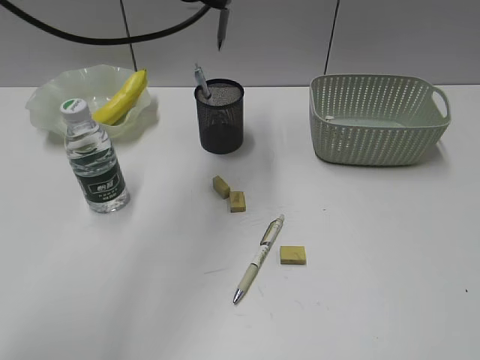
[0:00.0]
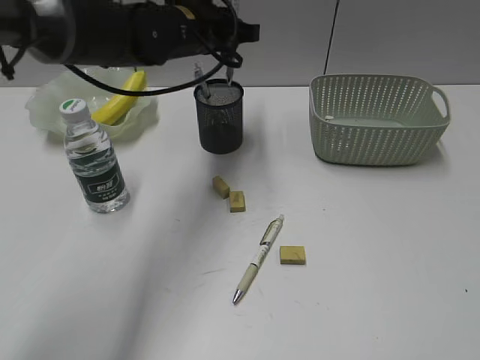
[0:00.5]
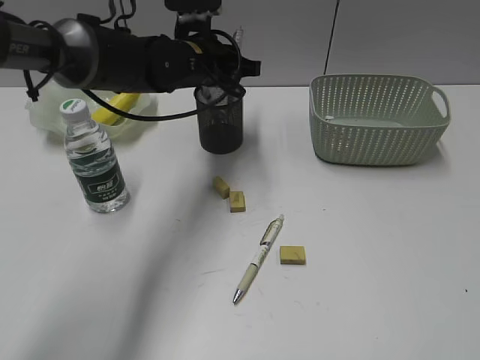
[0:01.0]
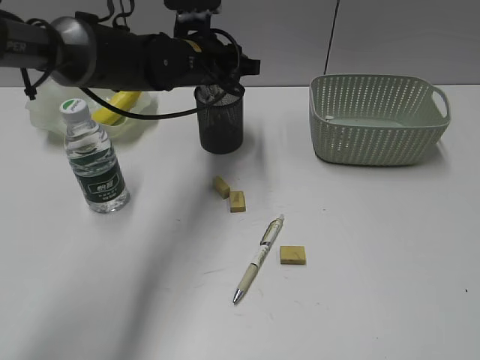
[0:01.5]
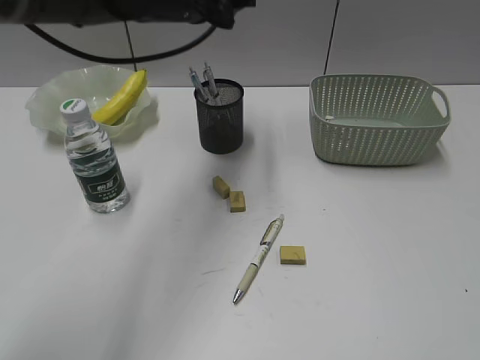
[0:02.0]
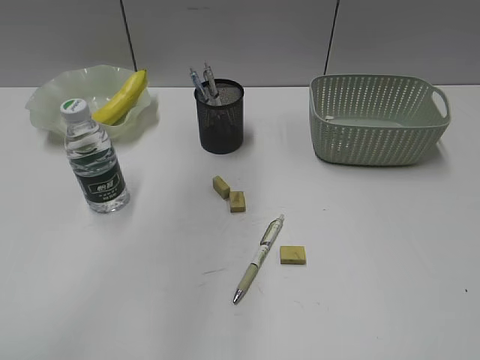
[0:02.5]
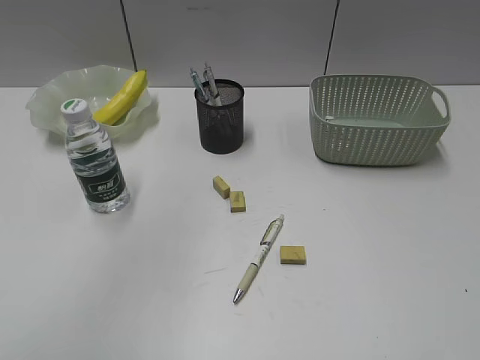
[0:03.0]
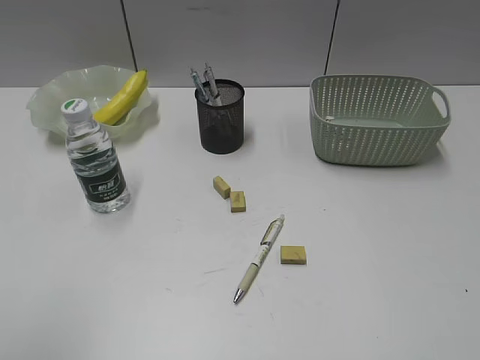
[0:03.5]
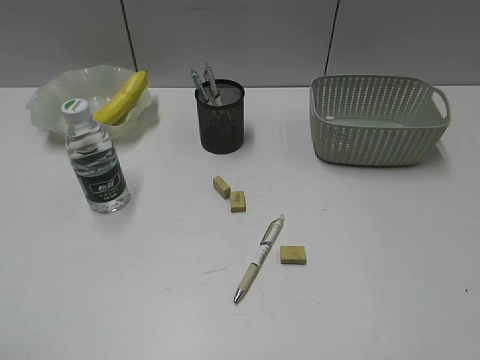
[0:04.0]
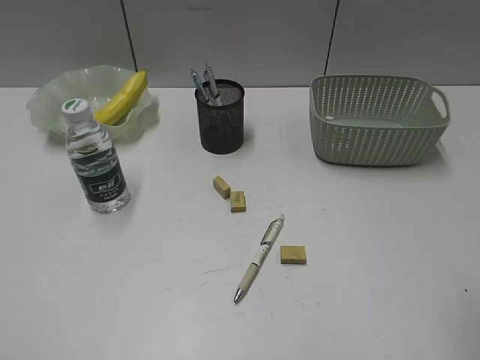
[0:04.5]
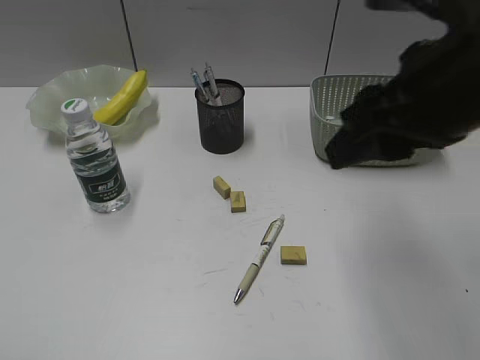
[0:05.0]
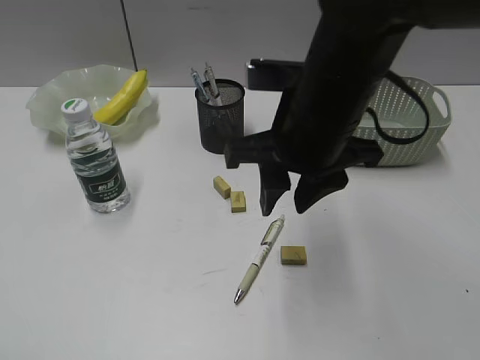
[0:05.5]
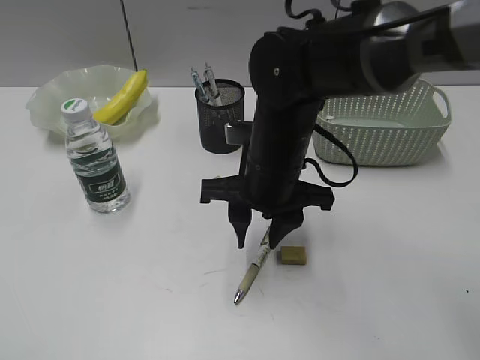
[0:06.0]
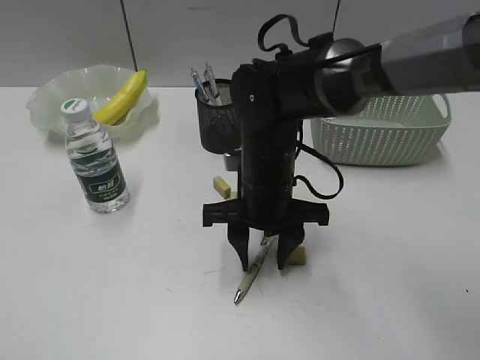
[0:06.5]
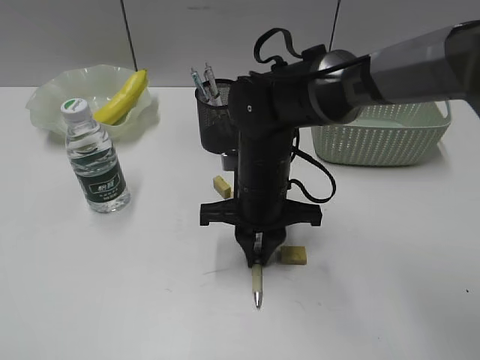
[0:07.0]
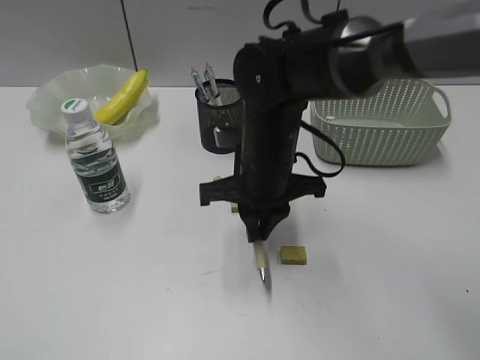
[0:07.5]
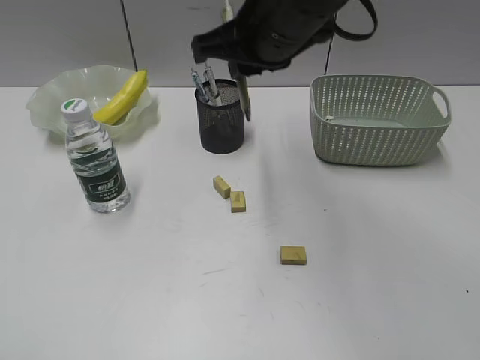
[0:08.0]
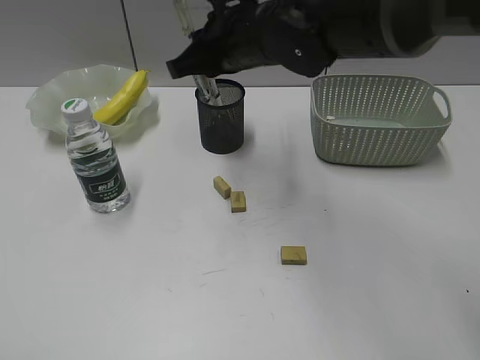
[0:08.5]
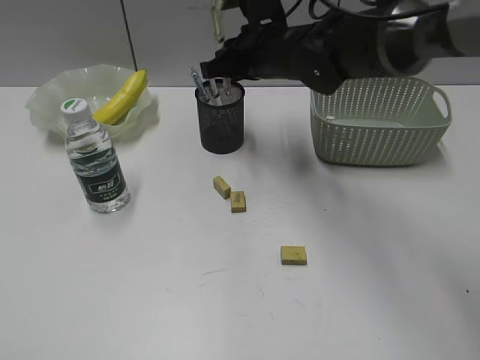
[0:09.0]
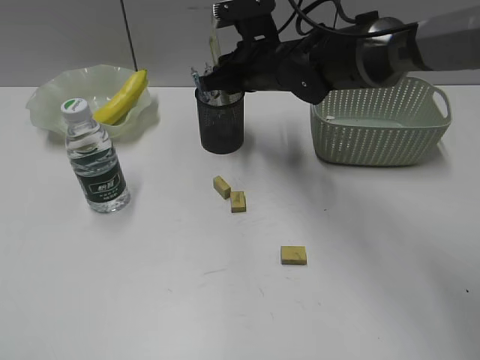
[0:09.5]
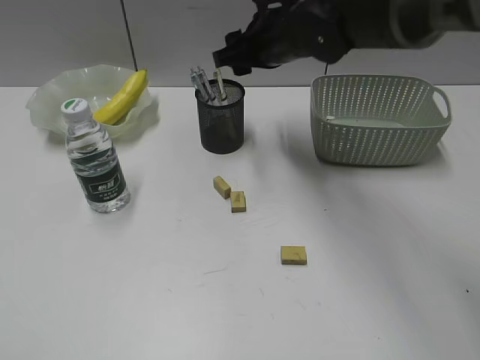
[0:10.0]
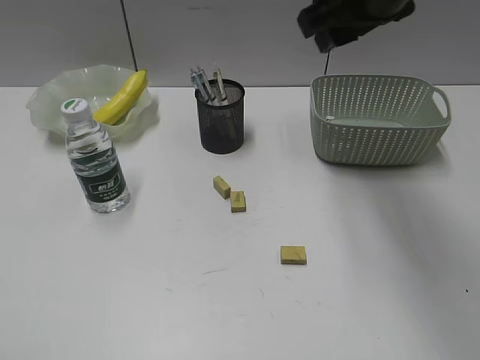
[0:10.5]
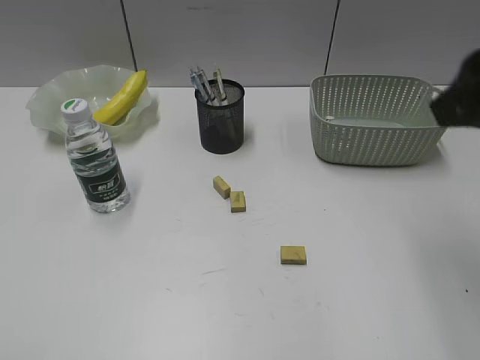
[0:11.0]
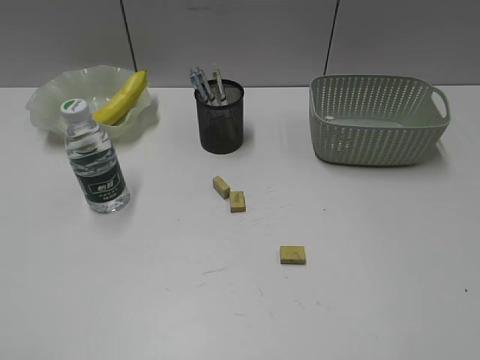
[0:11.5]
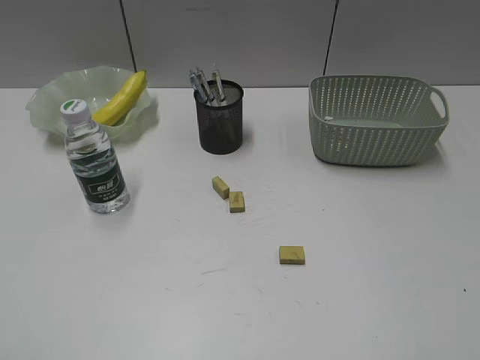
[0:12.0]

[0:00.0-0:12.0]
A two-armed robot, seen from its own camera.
Step, 0:00.0 to 0:01.5: Place the gray pen in pen holder with left gripper.
Step, 0:02.0 to 0:07.0: Grasp the yellow pen with right gripper.
Step, 0:07.5 to 0:09.5: Place the yellow pen in pen holder with right gripper.
0:00.0 to 0:02.0: The left gripper goes downward and returns, about 10 cm each way, and opens up.
0:02.0 to 0:04.0: The left gripper travels backward and to the left by approximately 50 cm.
0:04.0 to 0:06.0: The right gripper heads forward, to the left and downward, covering approximately 40 cm.
0:06.0 to 0:08.0: The right gripper heads upward, covering approximately 15 cm, and closes up.
0:08.0 to 0:10.0: The right gripper travels forward and downward by approximately 10 cm, and opens its fingers.
0:10.0 to 0:12.0: The right gripper travels backward and to the right by approximately 50 cm.

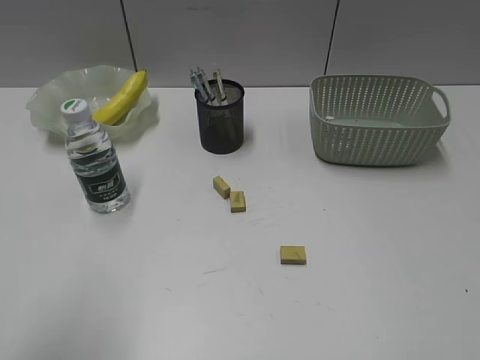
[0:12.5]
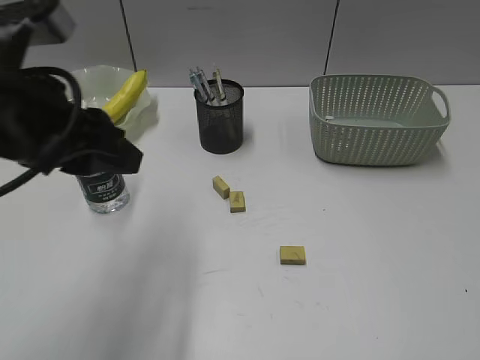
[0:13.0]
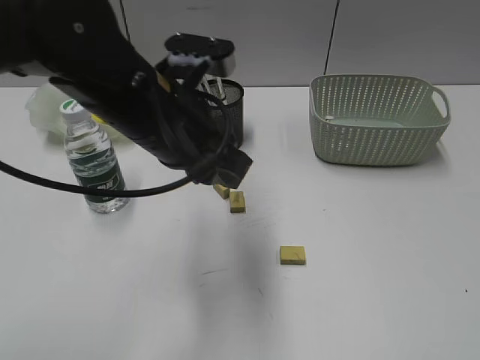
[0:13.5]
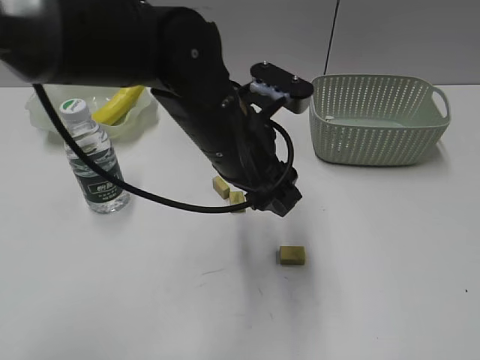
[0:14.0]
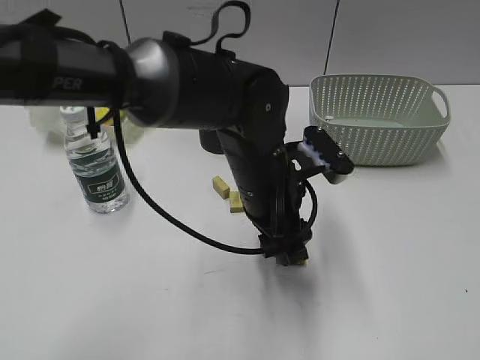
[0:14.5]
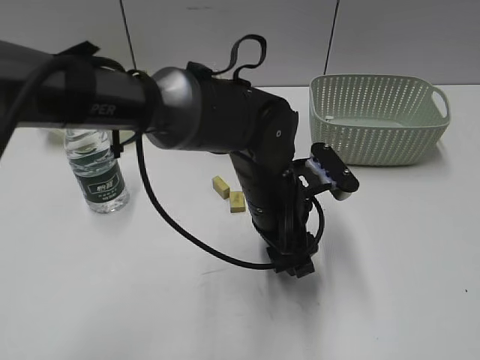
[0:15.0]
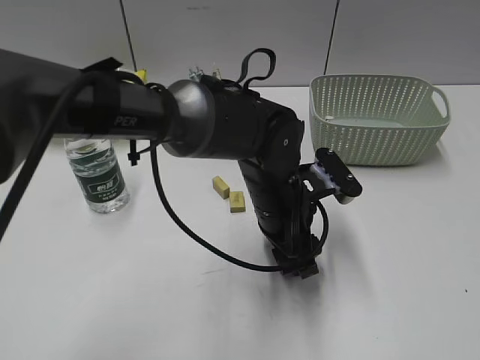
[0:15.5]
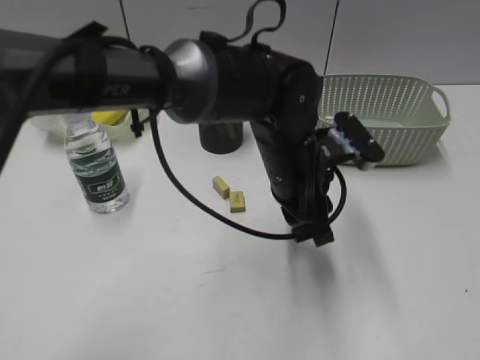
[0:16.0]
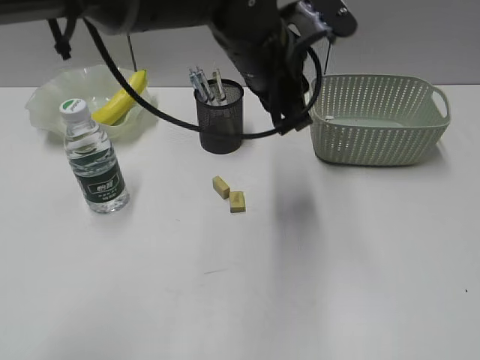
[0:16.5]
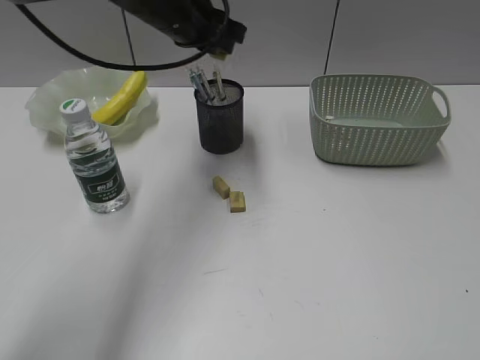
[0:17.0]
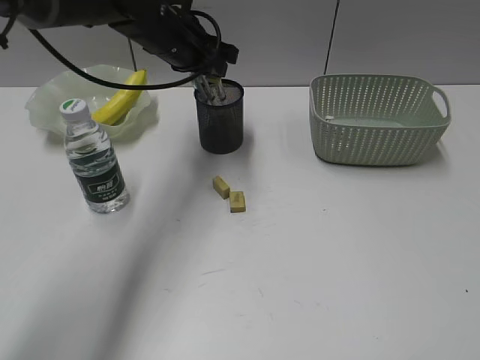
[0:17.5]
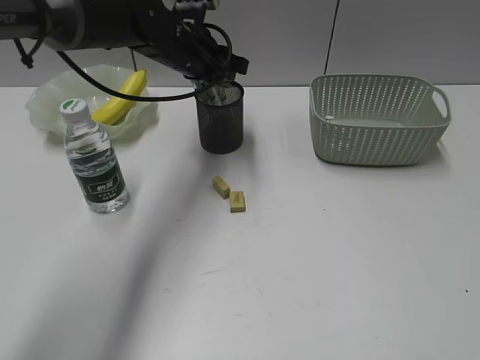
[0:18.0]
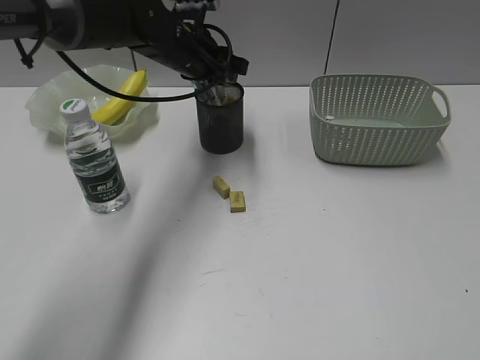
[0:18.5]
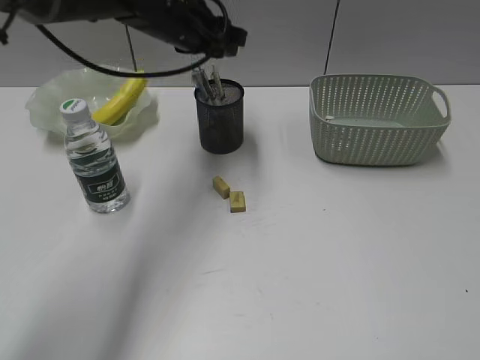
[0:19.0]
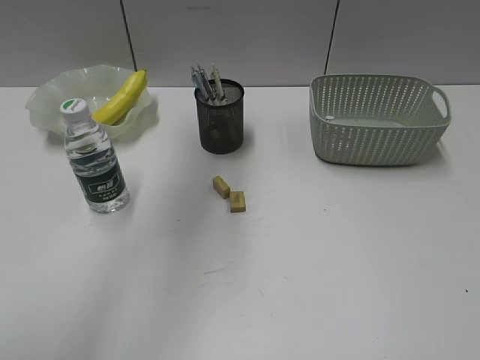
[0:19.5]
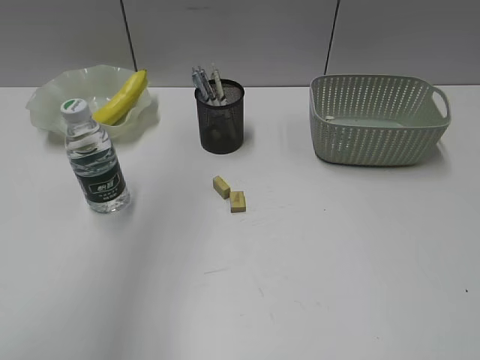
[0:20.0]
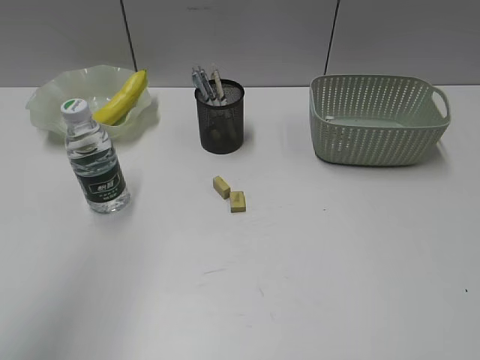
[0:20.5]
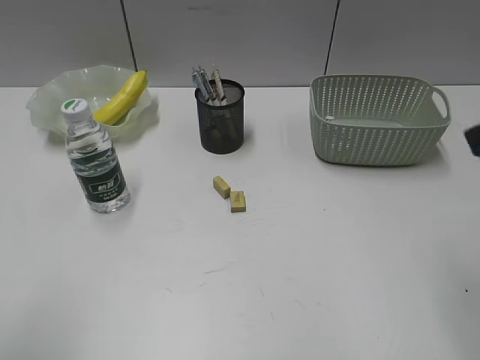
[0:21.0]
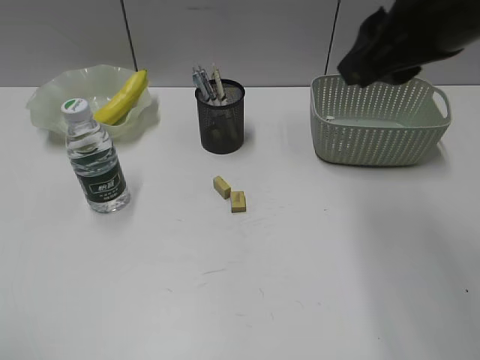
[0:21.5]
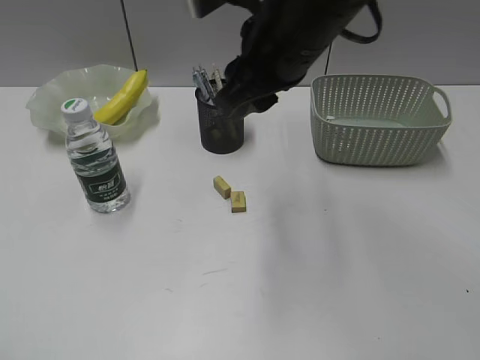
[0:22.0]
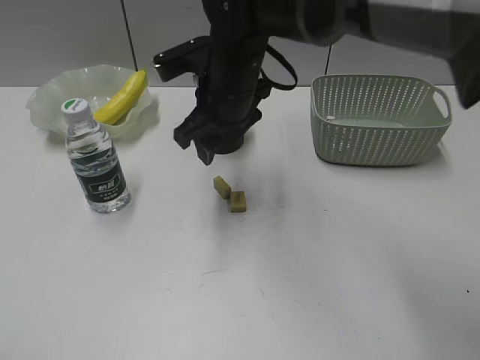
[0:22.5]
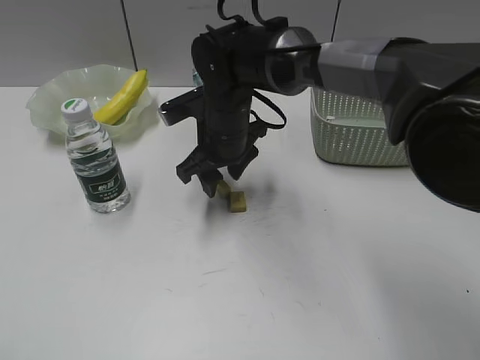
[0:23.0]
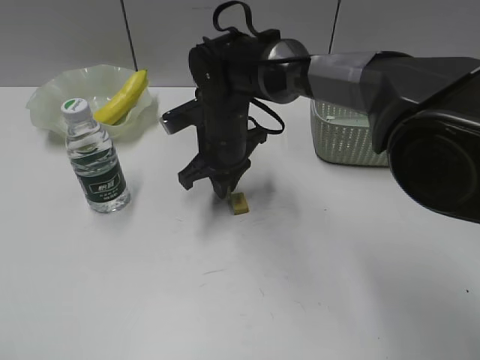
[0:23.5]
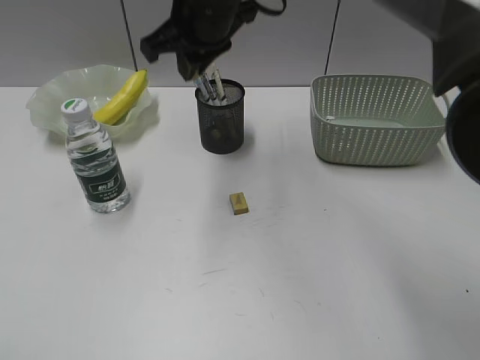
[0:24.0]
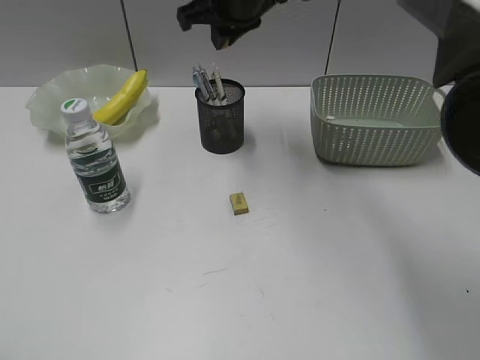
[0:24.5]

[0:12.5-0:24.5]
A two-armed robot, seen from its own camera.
Step, 0:12.5 to 0:18.0: Grasp the eraser with left gripper.
Step, 0:19.0 to 0:23.0: Grasp the eraser with right gripper.
0:12.5 to 0:14.5: The left gripper is displaced to the right, forward and downward by about 40 cm, and opens.
0:14.5 to 0:16.5: The left gripper shifts about 10 cm upward and forward, and closes.
0:16.5 to 0:18.5: The left gripper shifts some 15 cm forward, to the left and downward.
0:18.5 to 0:20.5: The left gripper shifts about 50 cm backward, upward and to the left.
0:20.5 to 0:22.5: The left gripper moves downward and backward, some 25 cm; the right gripper goes approximately 50 cm forward and to the left.
0:22.5 to 0:24.5: The right gripper is displaced upward and forward by some 10 cm, and closes its fingers.

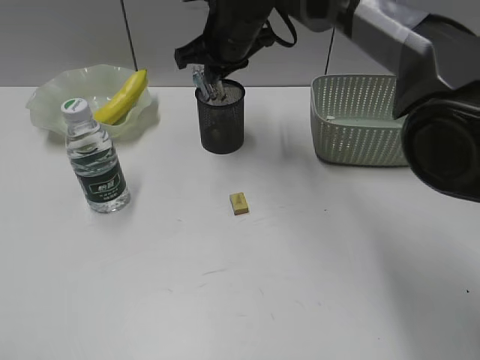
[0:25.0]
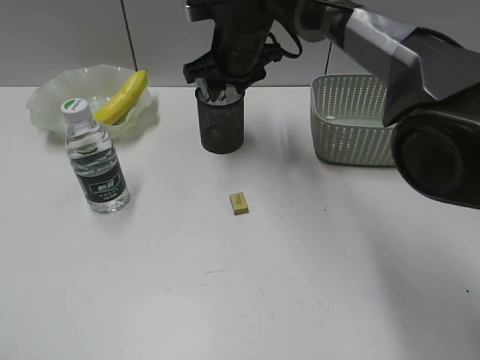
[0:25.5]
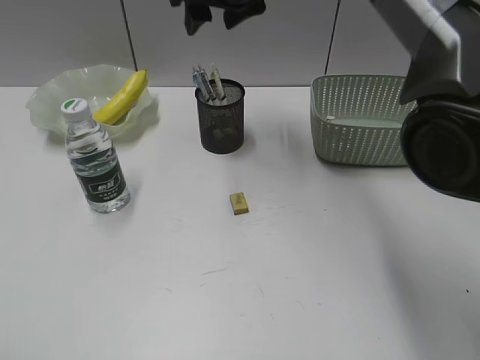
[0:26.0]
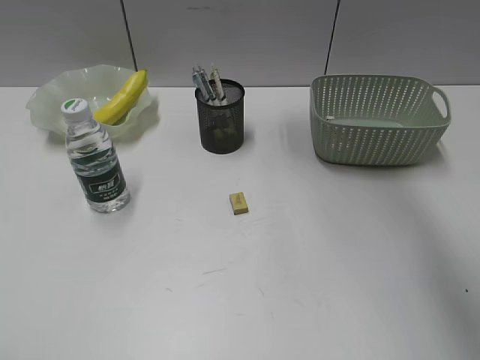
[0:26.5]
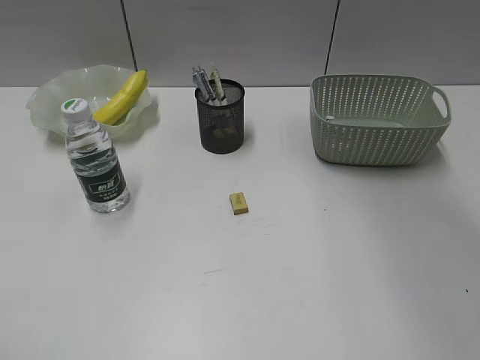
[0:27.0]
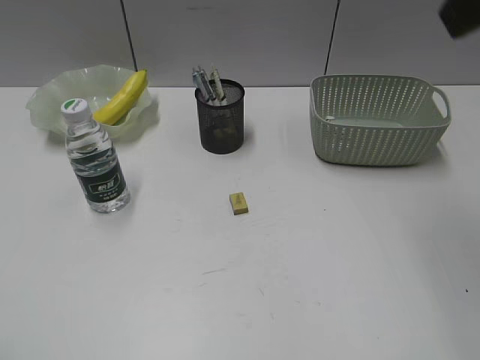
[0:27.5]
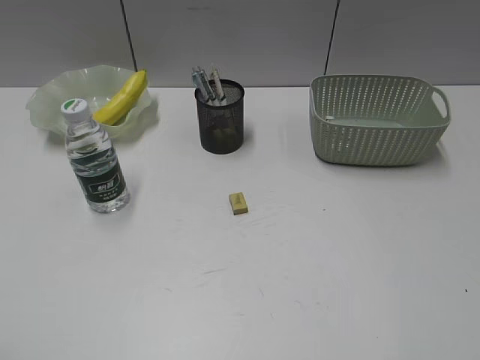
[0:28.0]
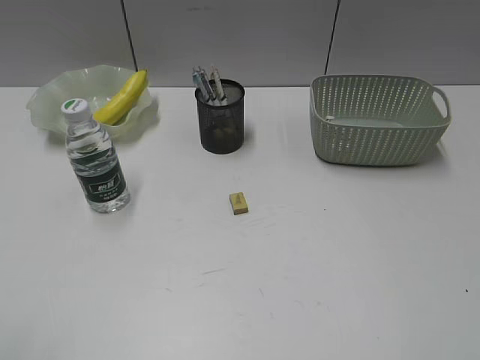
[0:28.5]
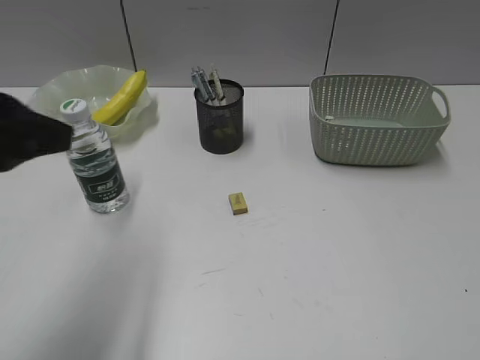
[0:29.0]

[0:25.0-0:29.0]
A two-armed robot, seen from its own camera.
0:25.0 to 0:27.0: The right gripper moves upward and backward, approximately 25 cm, and opens up.
0:27.0 to 0:29.0: The left gripper goes approximately 20 cm forward and to the right; the right gripper heads backward, to the right and downward, covering roughly 50 cm.
